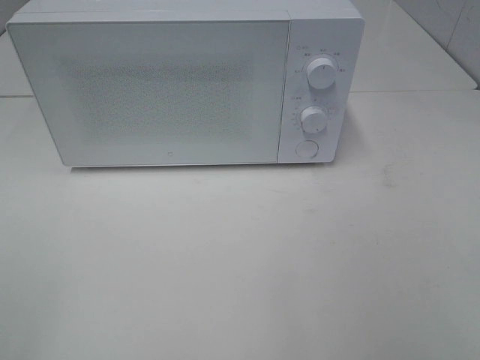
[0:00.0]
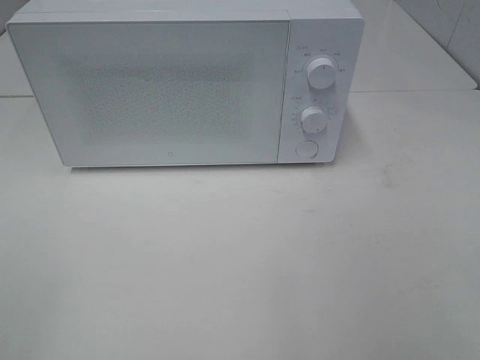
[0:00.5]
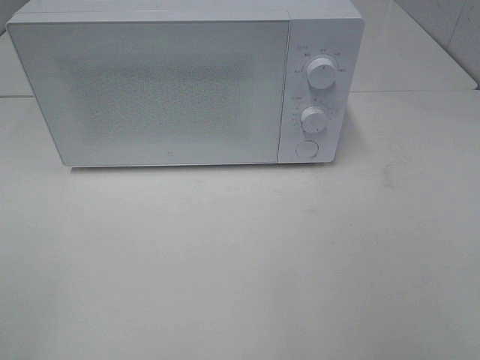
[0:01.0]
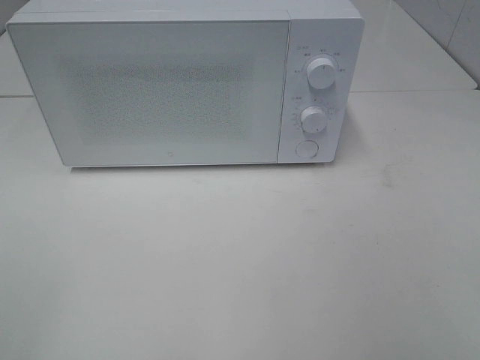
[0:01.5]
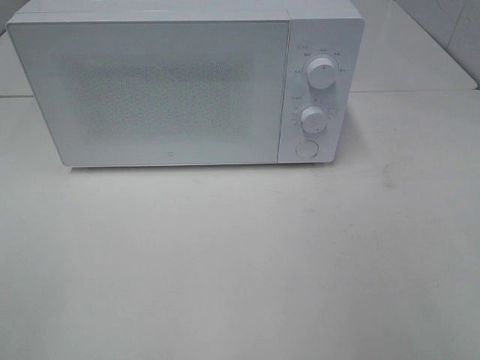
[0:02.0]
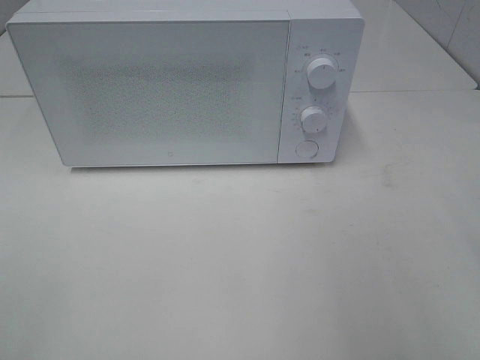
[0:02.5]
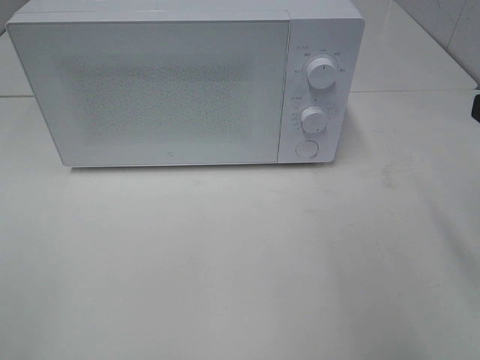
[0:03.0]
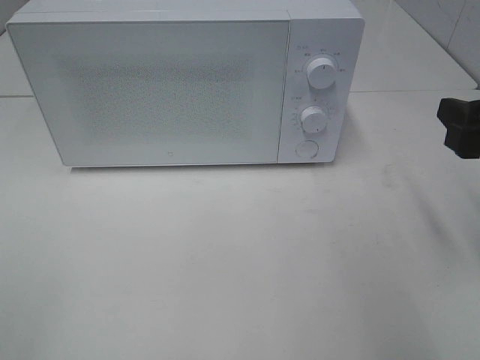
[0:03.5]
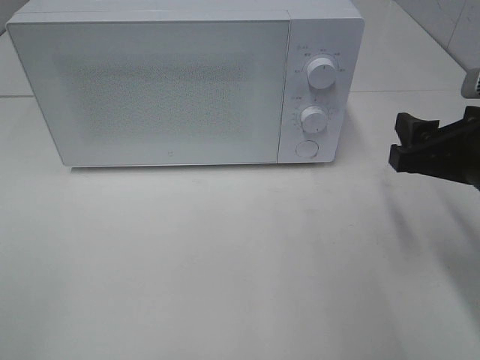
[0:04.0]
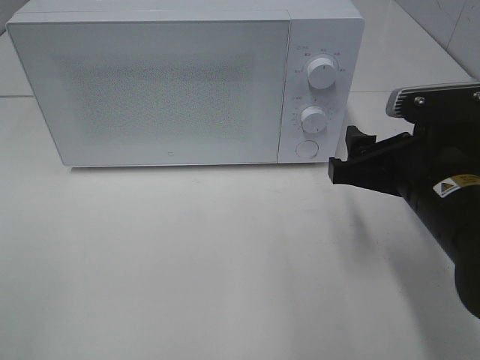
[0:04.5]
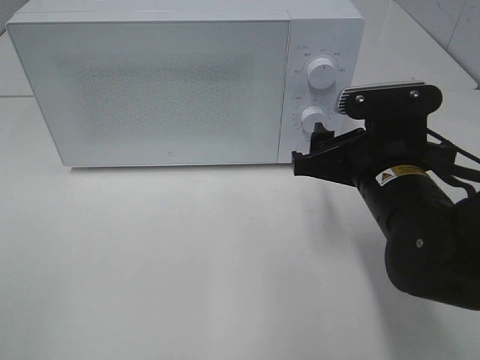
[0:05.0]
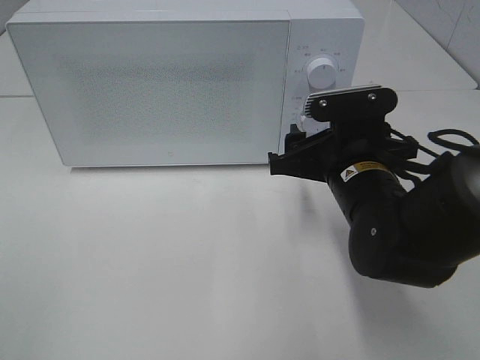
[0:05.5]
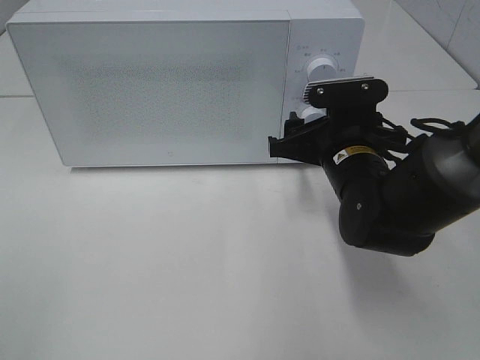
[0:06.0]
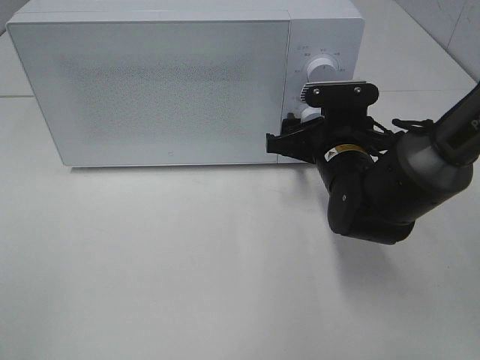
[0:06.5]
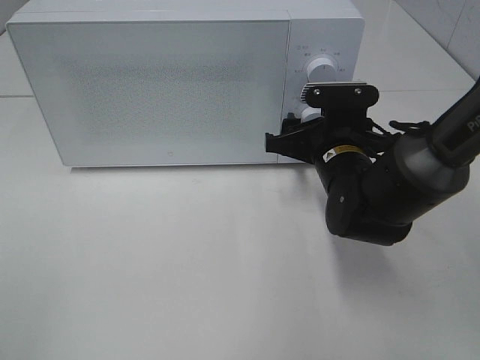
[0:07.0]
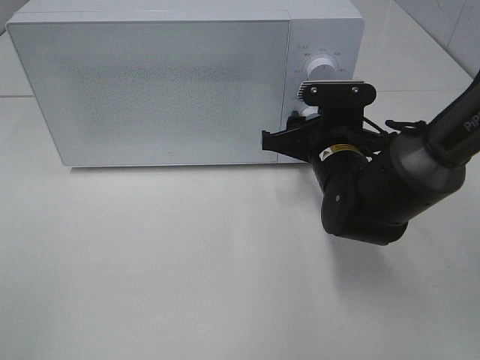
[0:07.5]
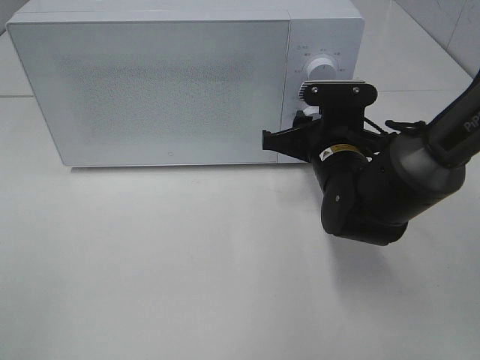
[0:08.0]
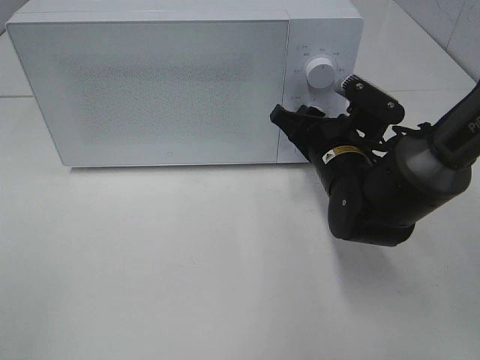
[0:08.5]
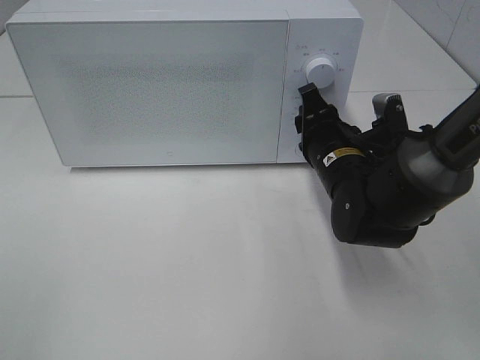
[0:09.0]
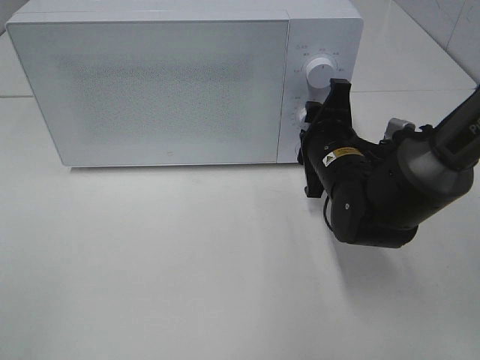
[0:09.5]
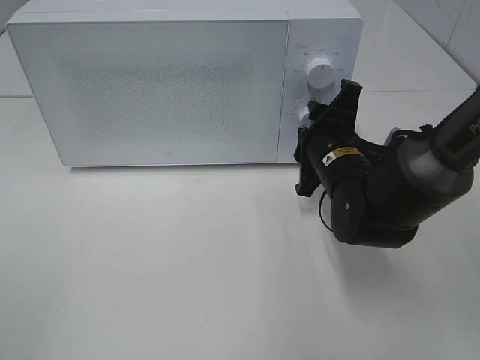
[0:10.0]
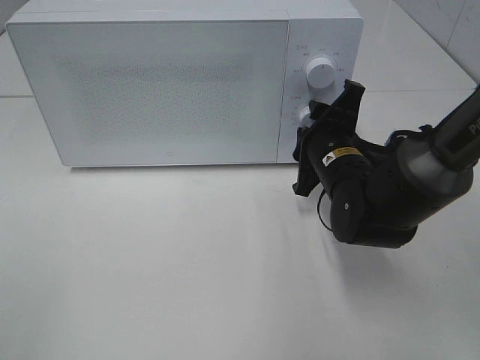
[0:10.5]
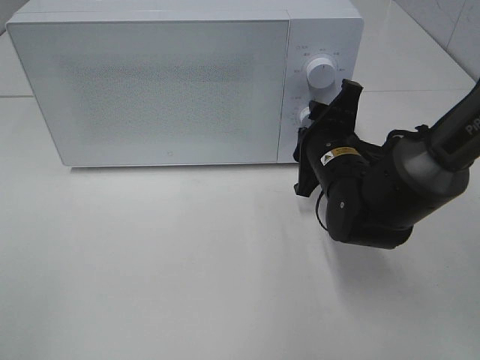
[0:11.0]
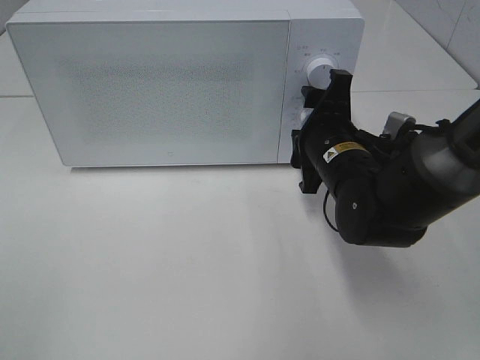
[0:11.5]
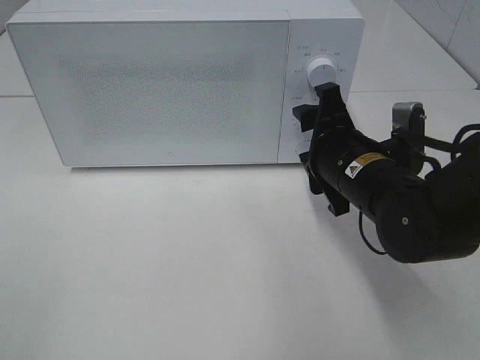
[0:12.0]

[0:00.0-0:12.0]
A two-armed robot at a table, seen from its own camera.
Task of the whole recording: Heat the burger.
Step, 0:00.0 to 0:11.5: Right hand: twist timer button.
0:02.0 to 0:04.0: The right gripper shifts approximately 20 cm forward and downward.
0:04.0 to 0:06.0: The right gripper goes some 15 cm to the left, forward and downward.
0:06.0 to 0:08.0: The right gripper closes its fingers.
0:10.0 to 0:12.0: The right gripper changes place by roughly 5 cm.

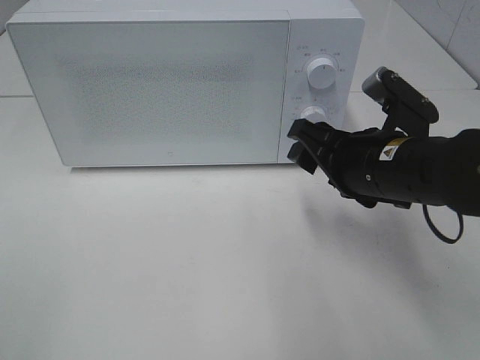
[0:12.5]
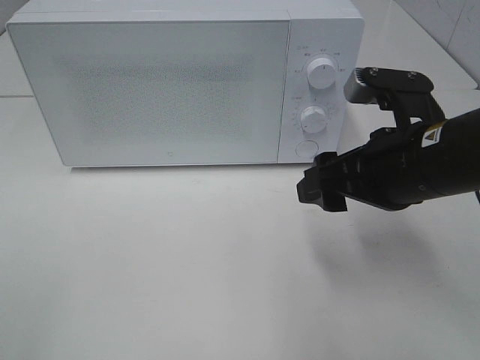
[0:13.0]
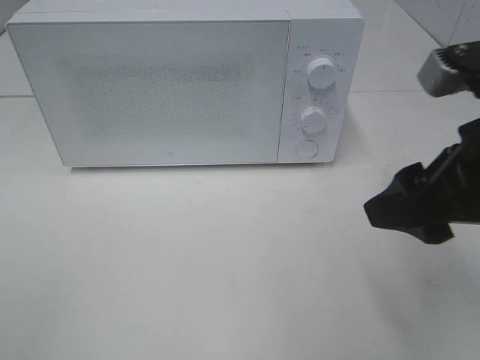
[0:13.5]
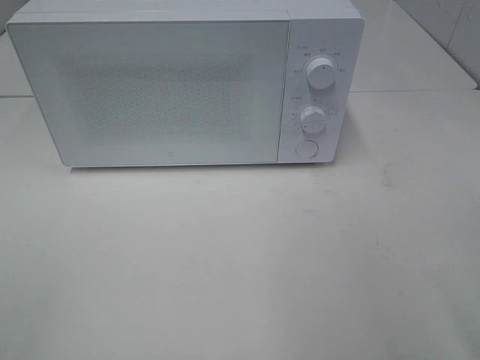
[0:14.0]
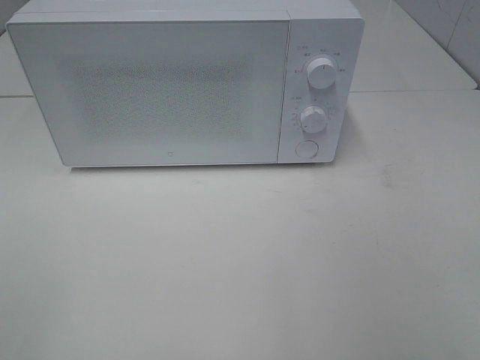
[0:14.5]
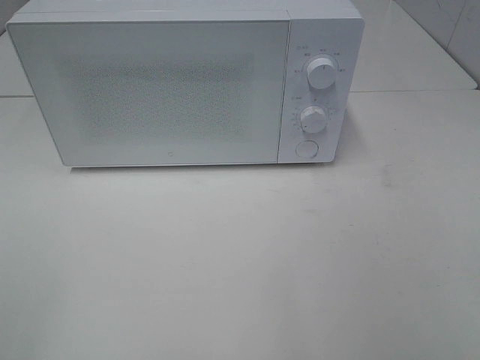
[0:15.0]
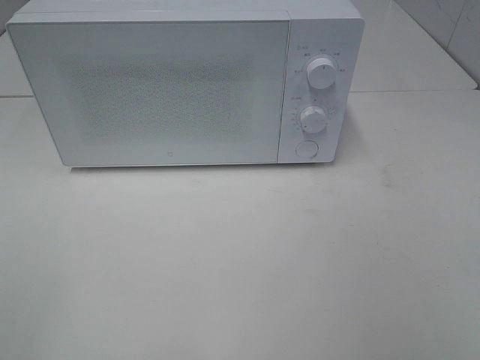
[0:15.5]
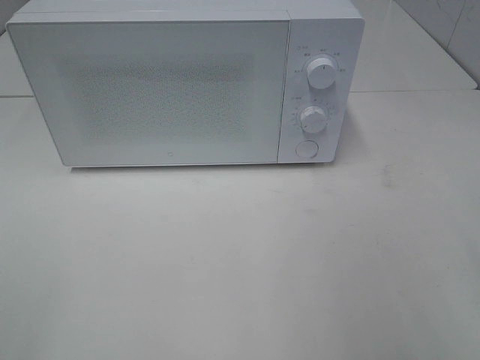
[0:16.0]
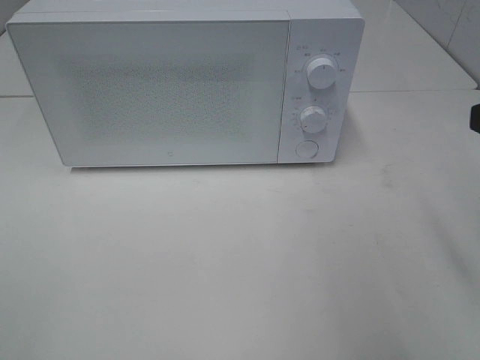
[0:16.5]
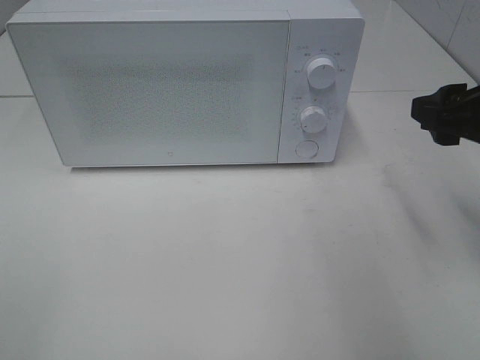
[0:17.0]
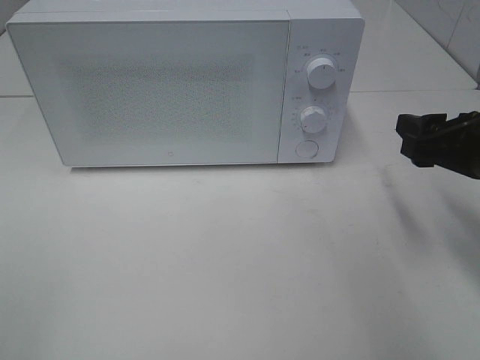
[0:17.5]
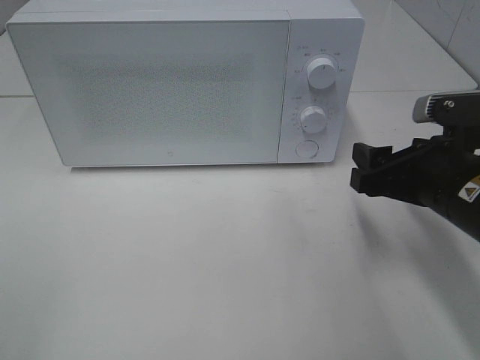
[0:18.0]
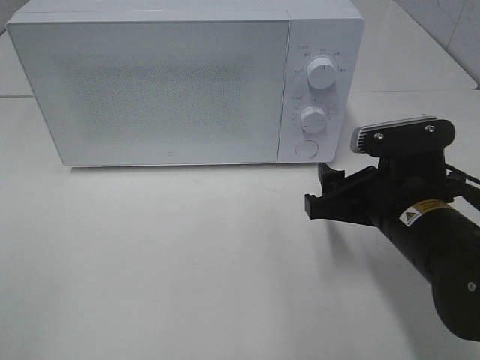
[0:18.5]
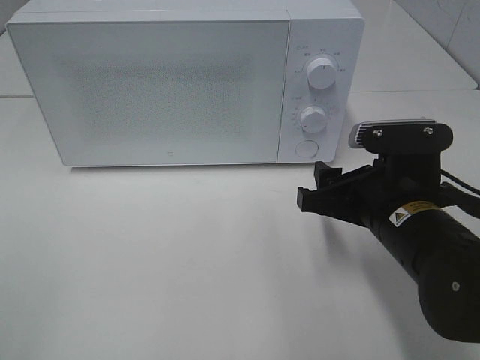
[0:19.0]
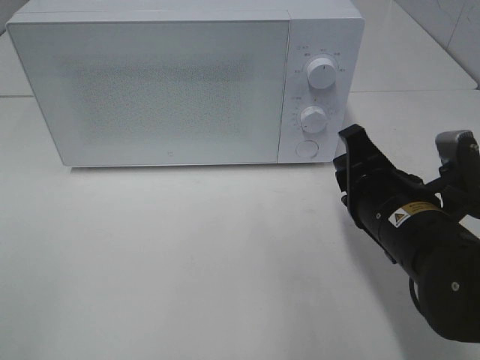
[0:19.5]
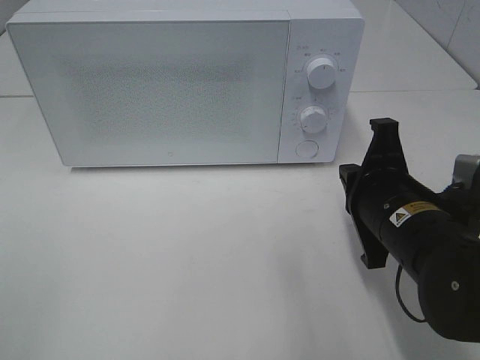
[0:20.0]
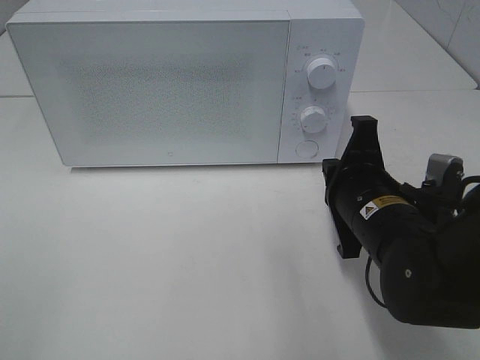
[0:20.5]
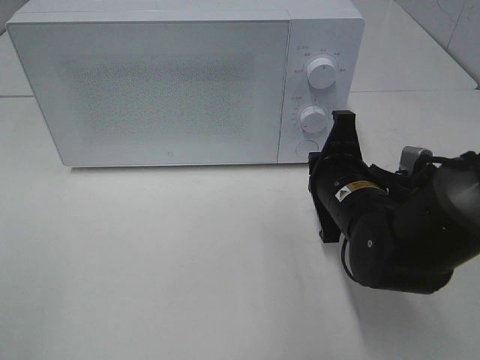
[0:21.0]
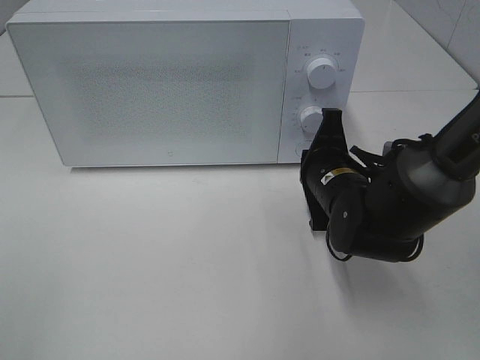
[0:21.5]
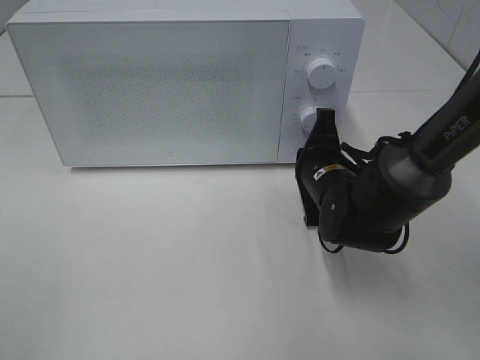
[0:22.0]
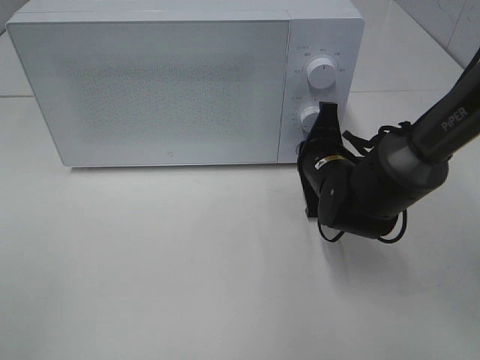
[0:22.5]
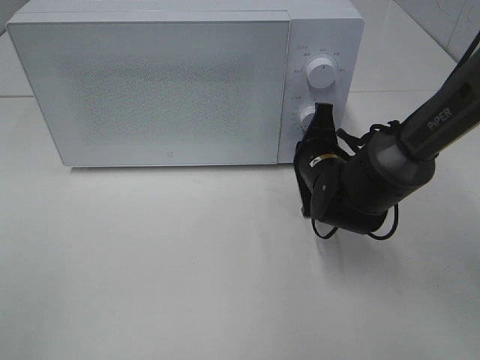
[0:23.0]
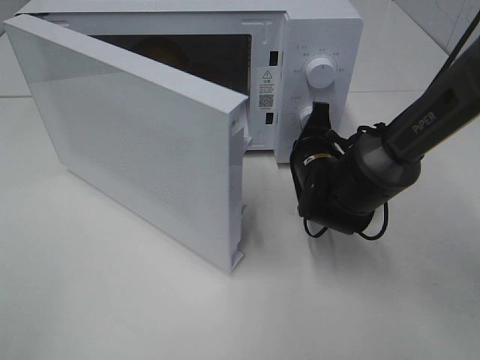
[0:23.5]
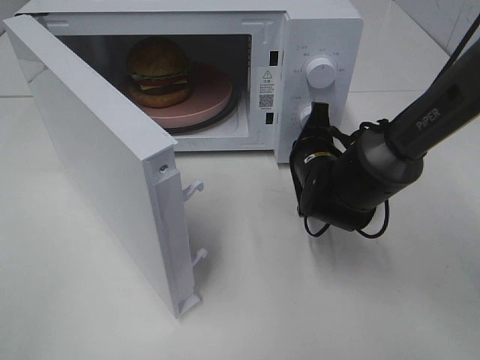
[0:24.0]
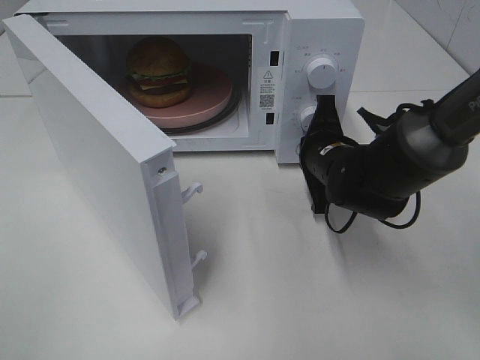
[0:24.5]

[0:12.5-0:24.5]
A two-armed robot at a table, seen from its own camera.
Task of the whole recording: Heat the burger.
0:12.5 to 0:14.5: The right gripper heads backward, to the right and upward, covering about 30 cm.
0:16.5 to 0:18.5: The right gripper shifts about 20 cm downward and to the left.
0:18.5 to 0:20.5: The right gripper closes.
0:20.5 to 0:22.5: The right gripper travels forward by roughly 10 cm.

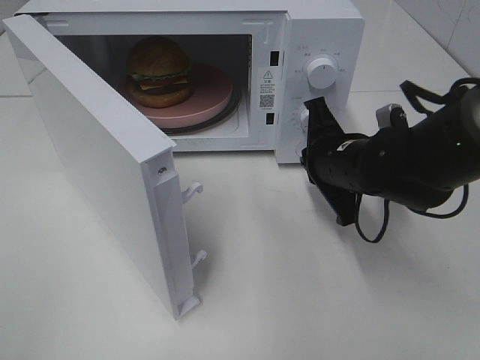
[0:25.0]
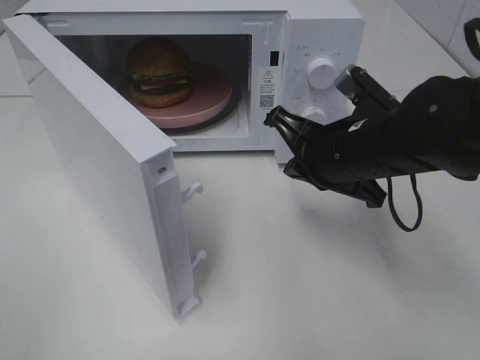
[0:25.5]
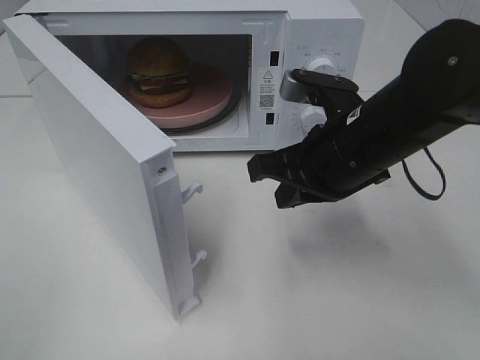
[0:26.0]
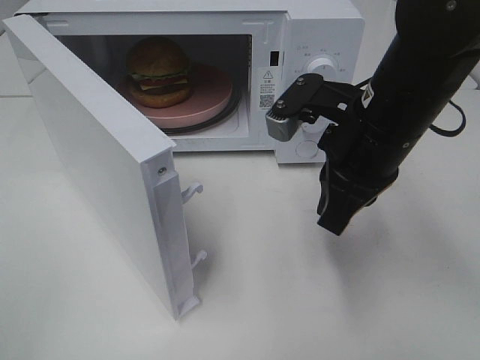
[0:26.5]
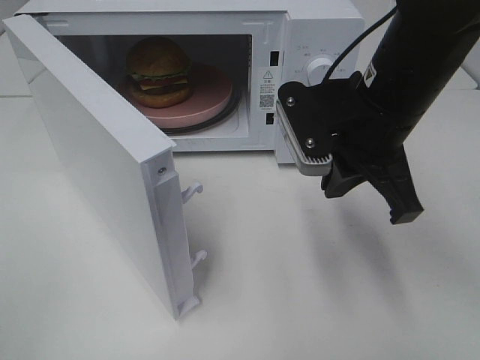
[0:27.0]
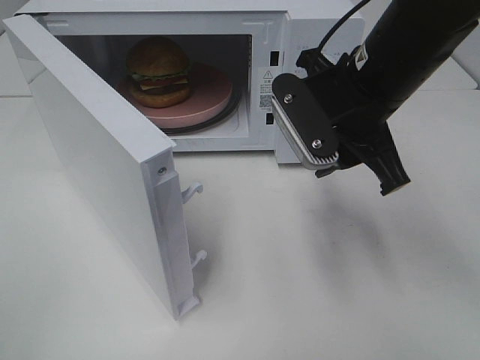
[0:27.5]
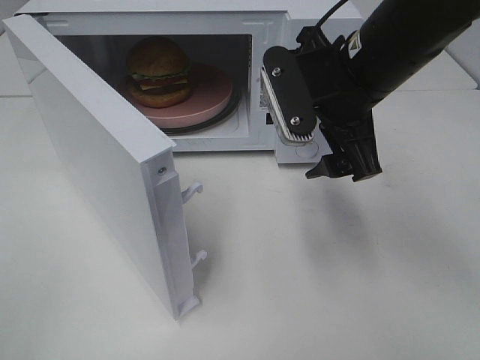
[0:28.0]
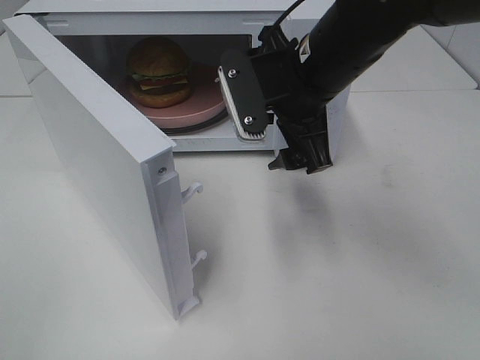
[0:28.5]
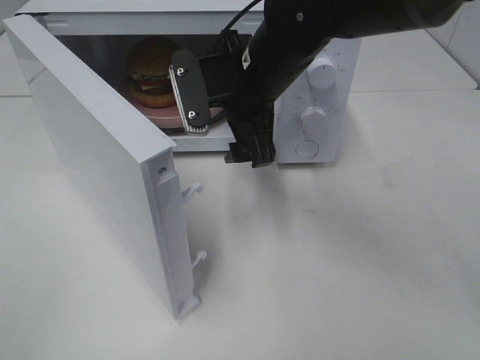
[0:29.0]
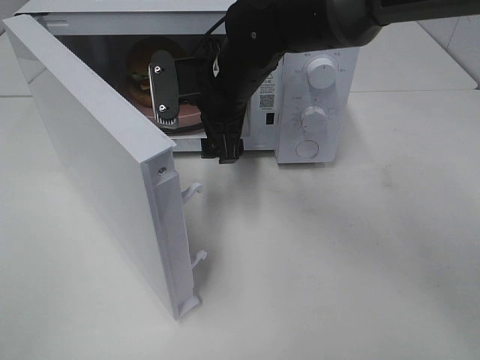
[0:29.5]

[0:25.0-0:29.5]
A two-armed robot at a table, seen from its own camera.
Task of the whole recording: Heat the burger.
0:25.0 to 0:27.0: The right gripper shifts approximately 10 cm upward.
0:27.0 to 0:29.5: The right gripper moves to the left and forward, some 15 cm, and opens its fingers.
